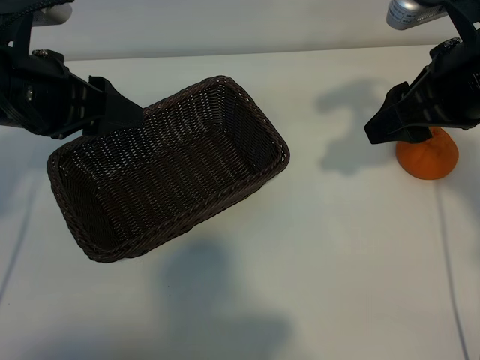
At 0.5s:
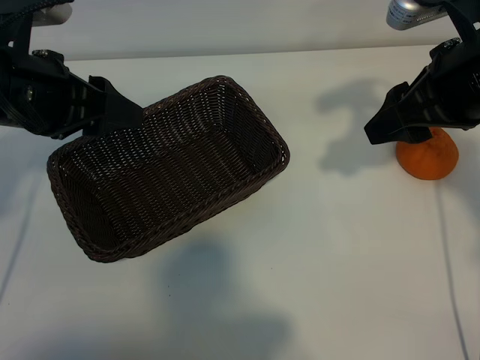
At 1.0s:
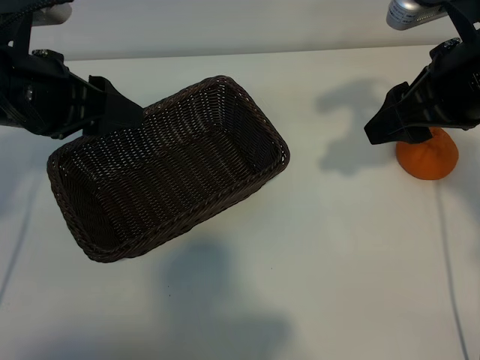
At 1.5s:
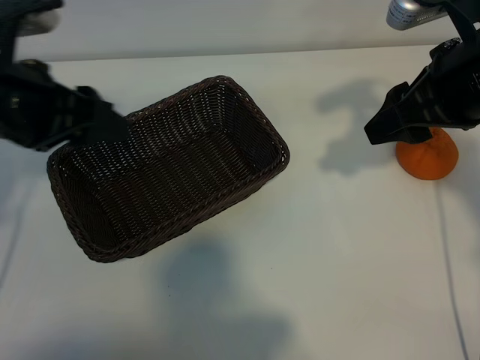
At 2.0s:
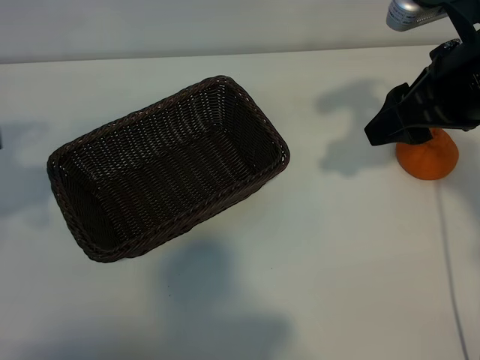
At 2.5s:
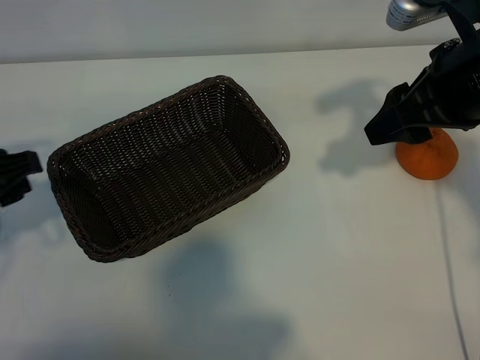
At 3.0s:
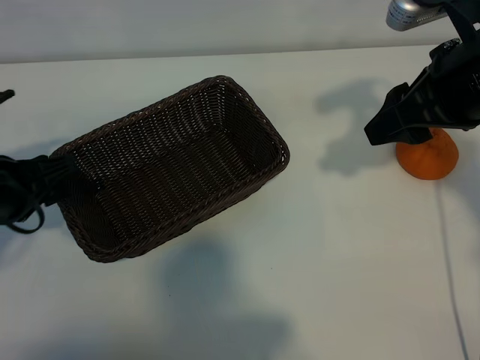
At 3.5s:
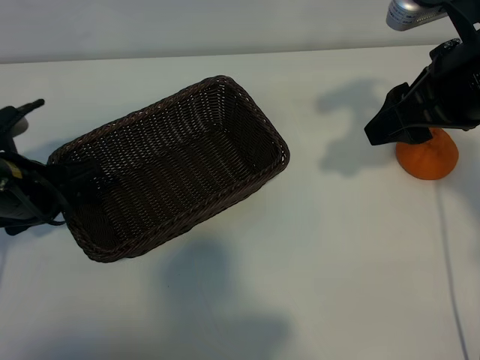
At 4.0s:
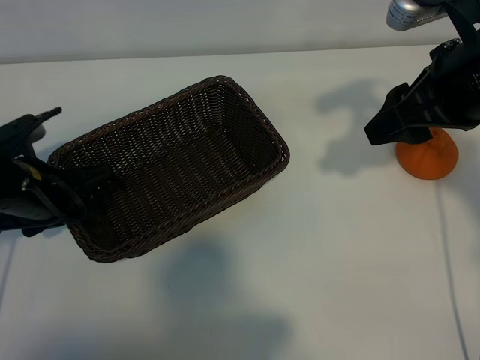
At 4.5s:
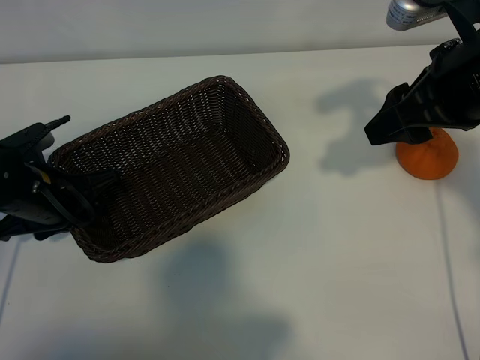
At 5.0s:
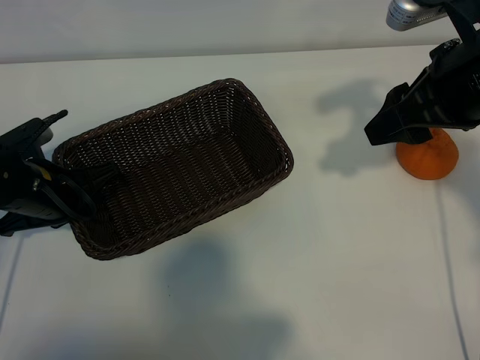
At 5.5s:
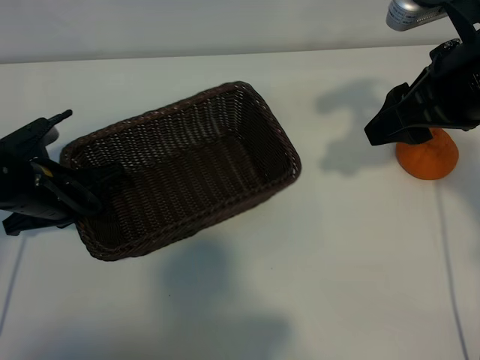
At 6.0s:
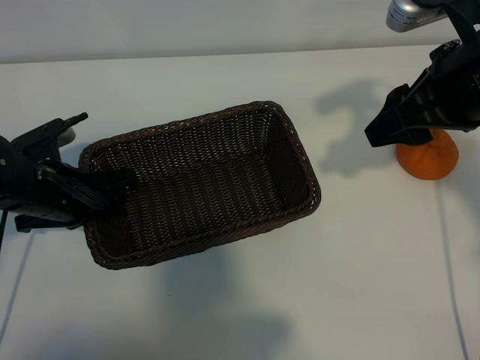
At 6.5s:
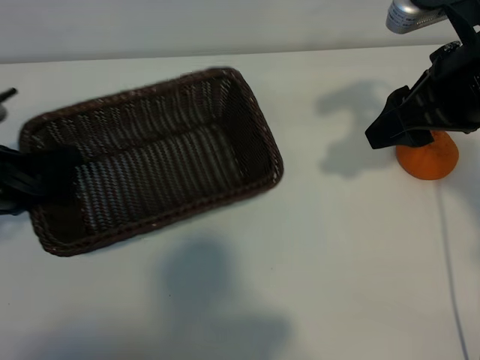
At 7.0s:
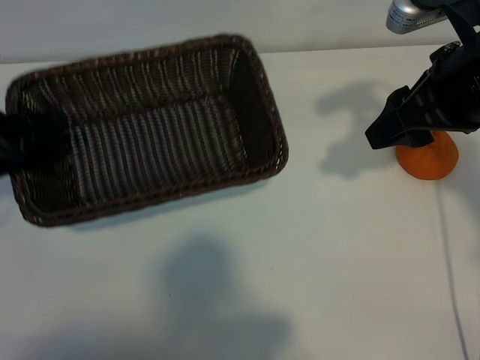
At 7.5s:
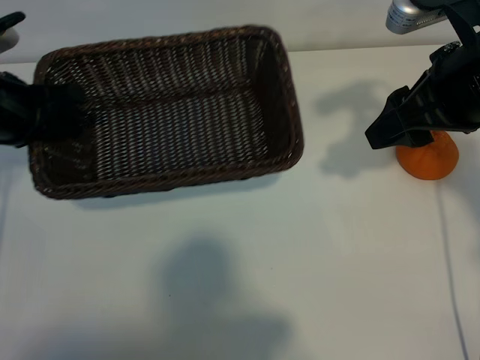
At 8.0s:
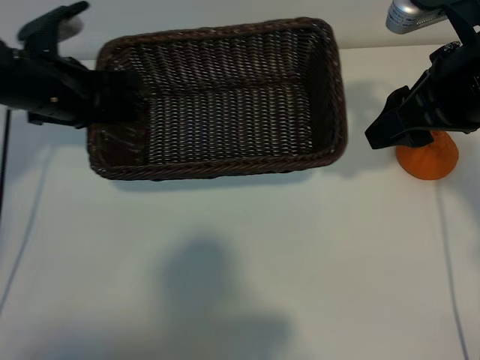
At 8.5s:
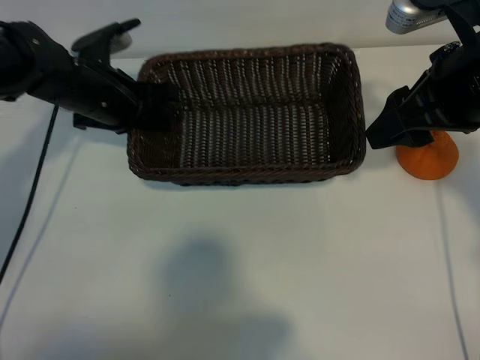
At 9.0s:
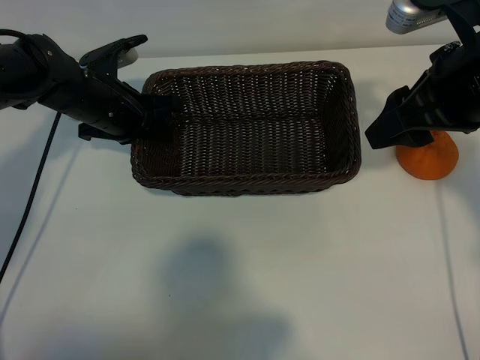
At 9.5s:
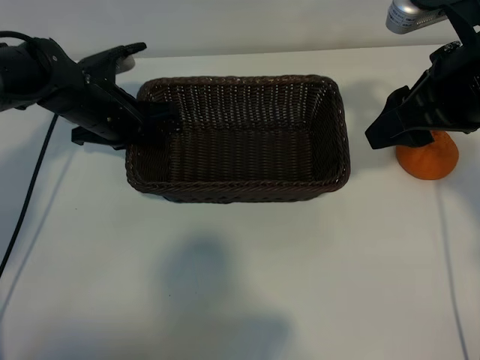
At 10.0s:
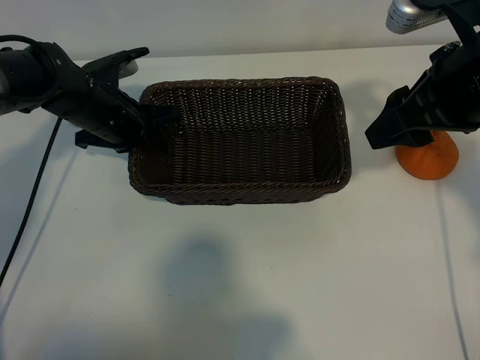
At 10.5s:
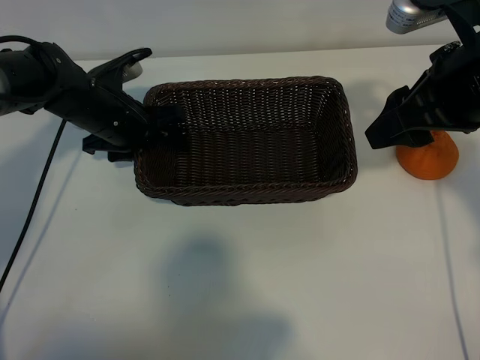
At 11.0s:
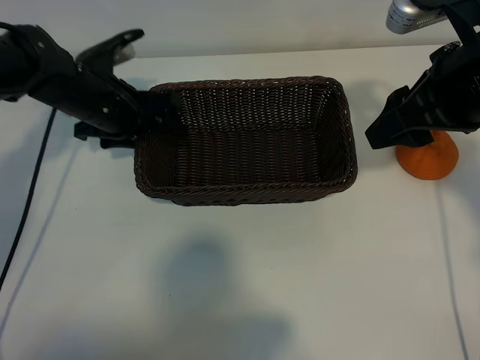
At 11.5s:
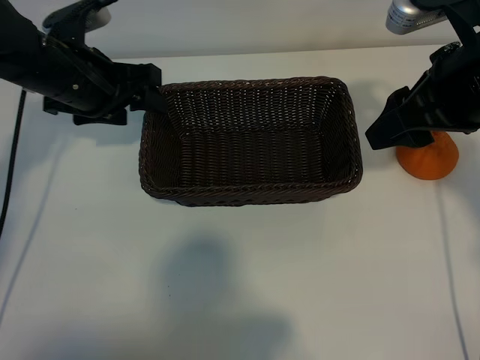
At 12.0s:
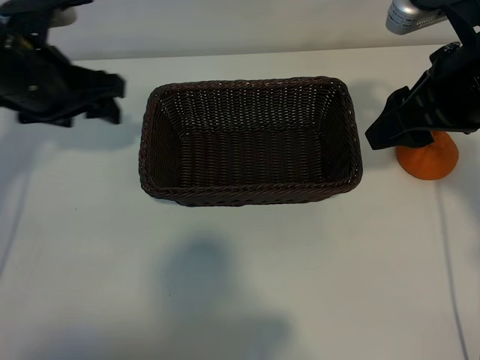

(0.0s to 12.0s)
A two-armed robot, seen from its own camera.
Task of the whole recording: pick up the orange and put it into the basket.
Step, 1.5s - 4.5s: Grasp the basket with left gripper.
Step, 5.0s - 10.5s: Place the basket in the center of view with left gripper.

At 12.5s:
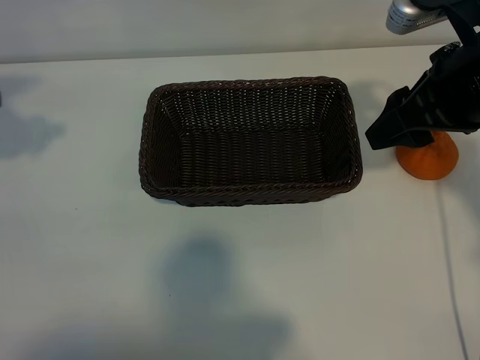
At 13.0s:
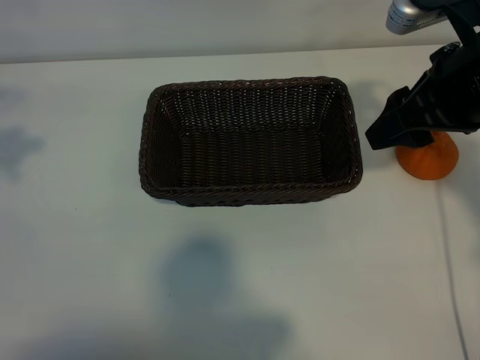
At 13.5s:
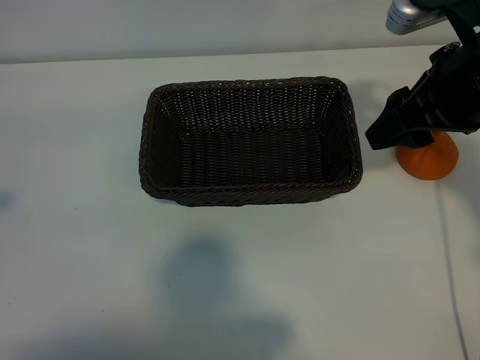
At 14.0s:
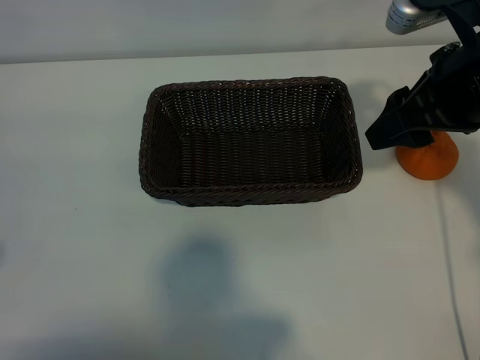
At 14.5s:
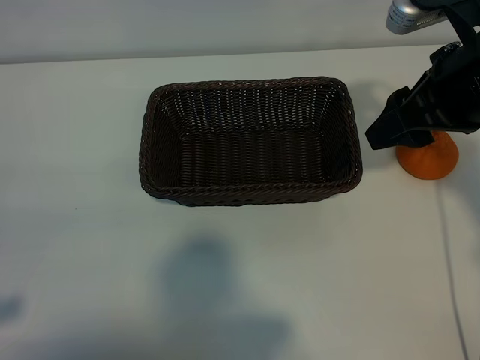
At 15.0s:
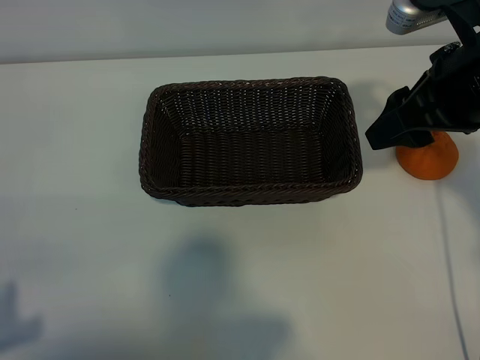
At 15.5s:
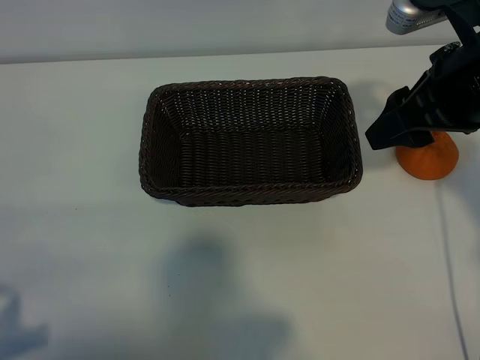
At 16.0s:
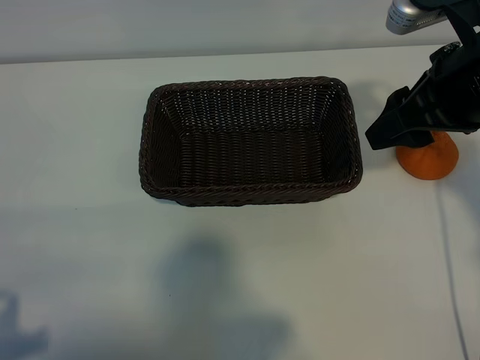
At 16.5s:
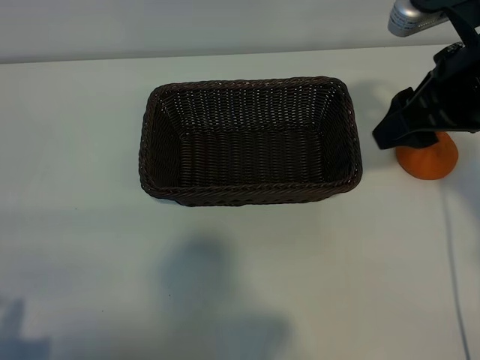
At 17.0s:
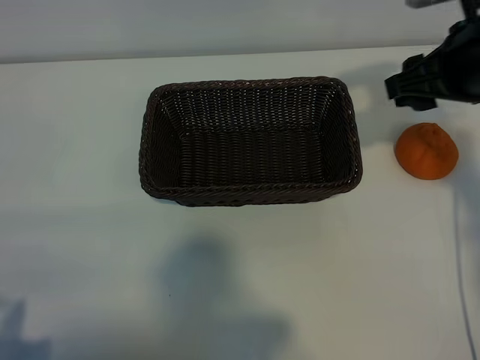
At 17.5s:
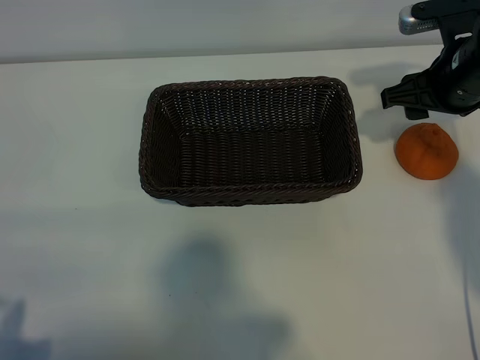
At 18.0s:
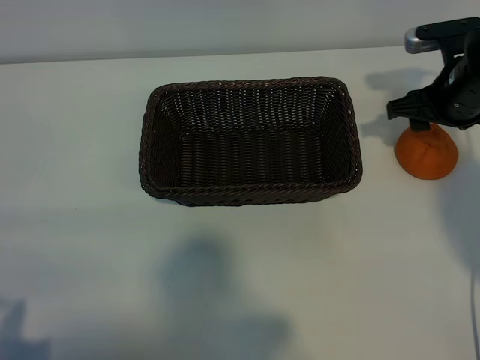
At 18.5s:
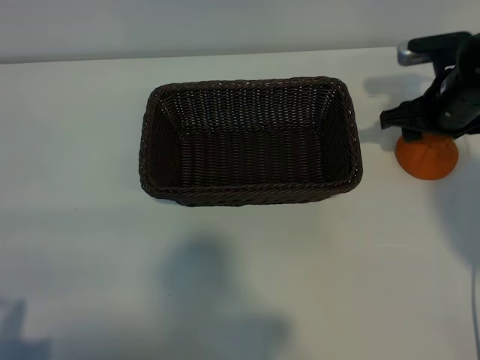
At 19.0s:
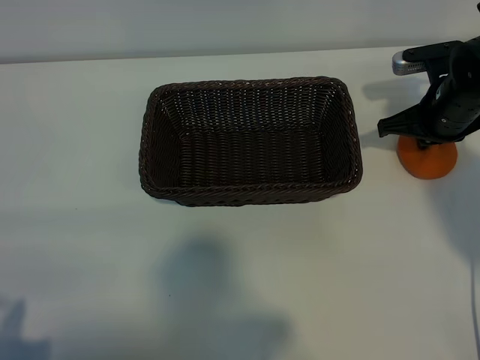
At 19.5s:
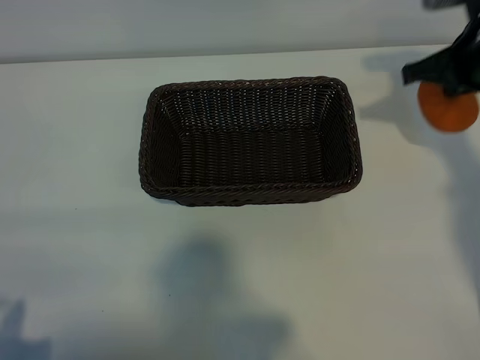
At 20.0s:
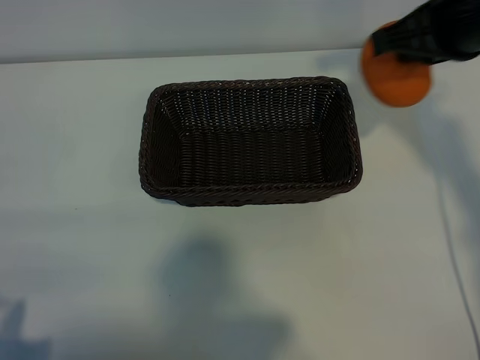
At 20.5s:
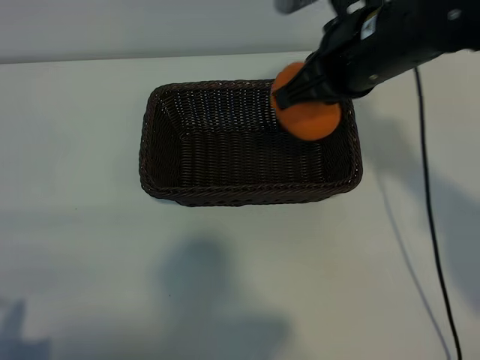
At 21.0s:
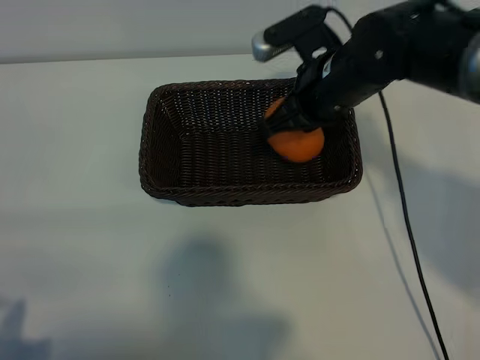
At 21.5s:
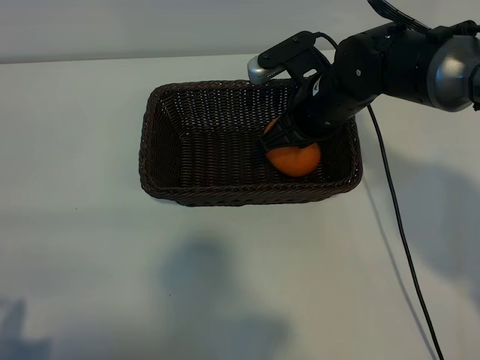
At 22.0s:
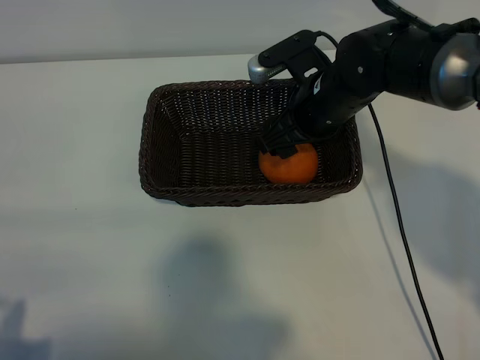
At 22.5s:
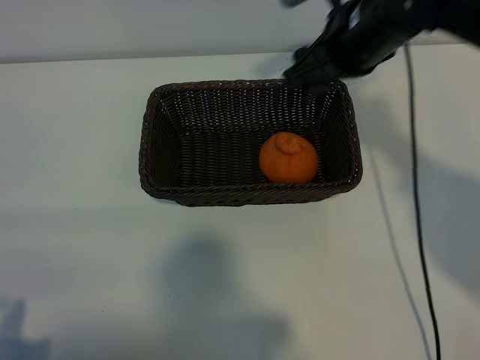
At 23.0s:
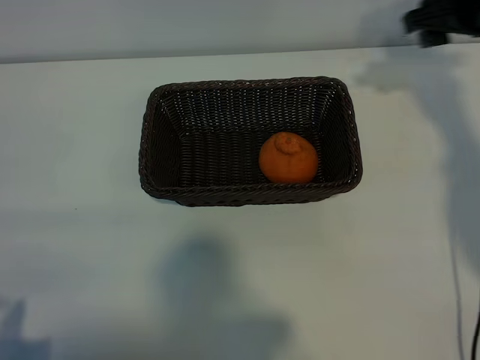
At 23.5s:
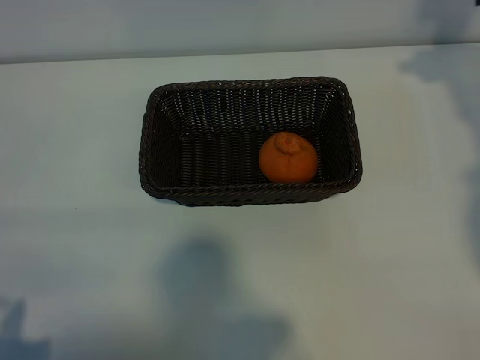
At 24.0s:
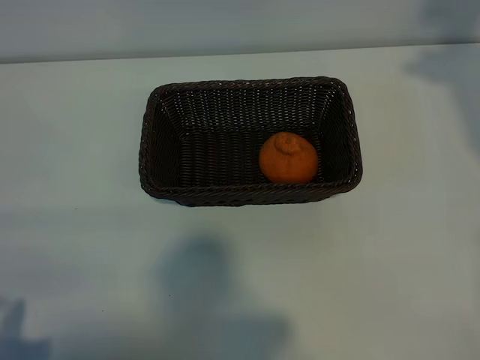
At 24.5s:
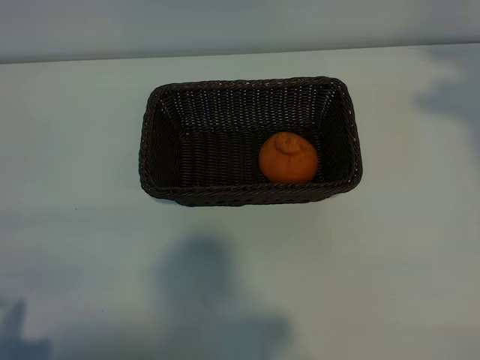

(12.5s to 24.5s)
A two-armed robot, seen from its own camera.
Task of the whole recording: pick up the orange and put it into the basket.
Step, 12.5s - 19.0s: Grasp the orange with right gripper.
Step, 19.5s - 22.0s: Place the orange in the basket with right gripper.

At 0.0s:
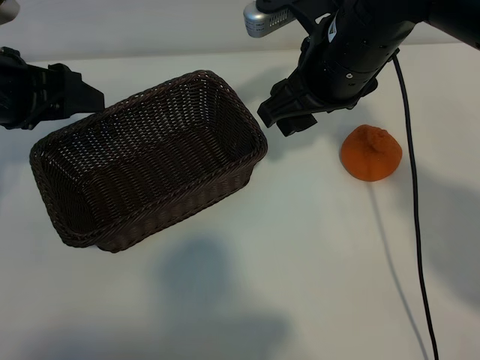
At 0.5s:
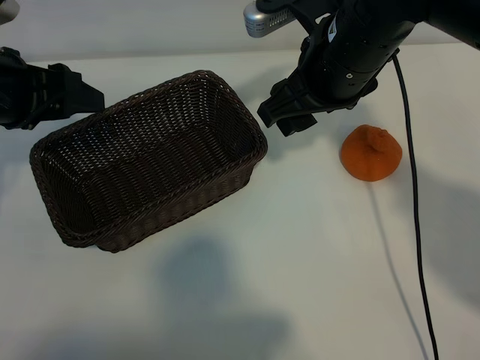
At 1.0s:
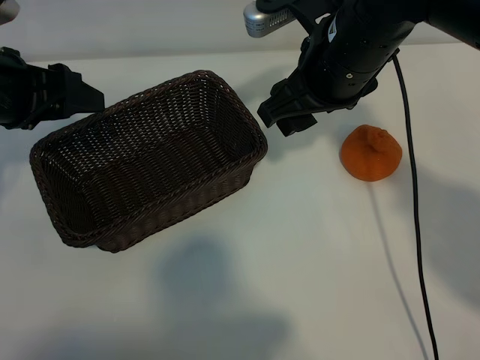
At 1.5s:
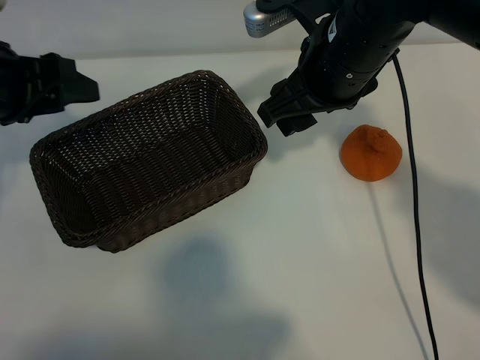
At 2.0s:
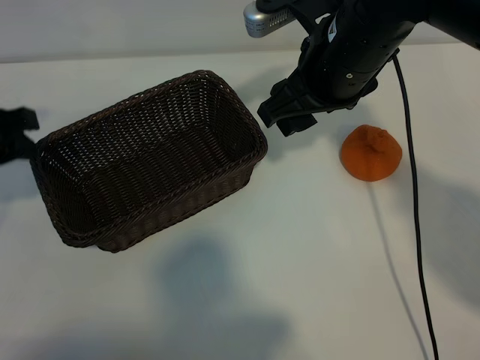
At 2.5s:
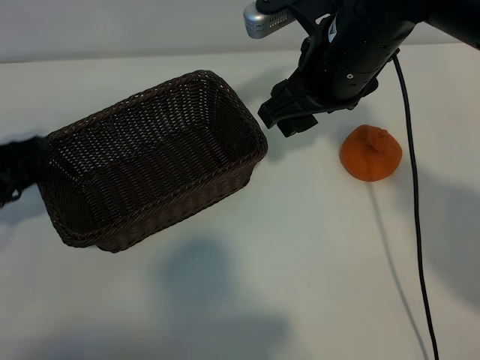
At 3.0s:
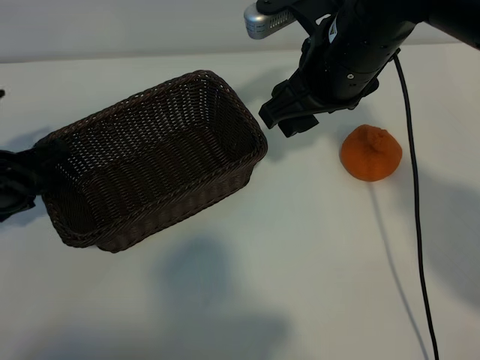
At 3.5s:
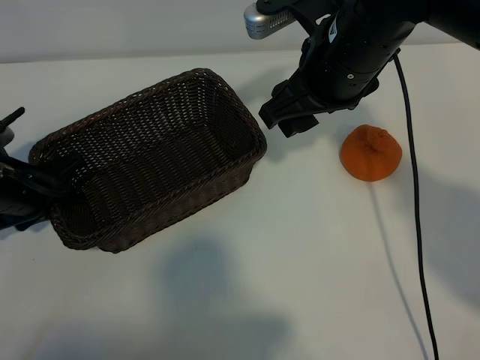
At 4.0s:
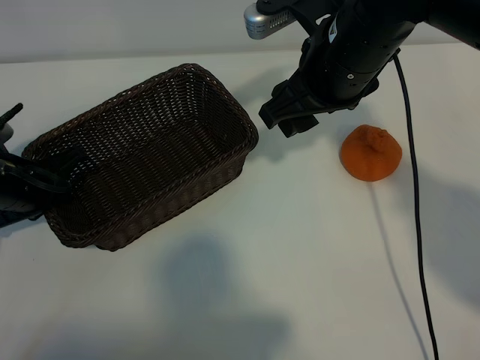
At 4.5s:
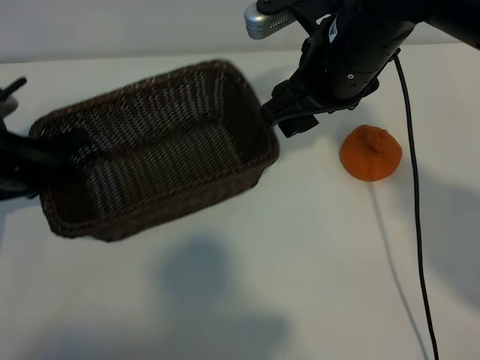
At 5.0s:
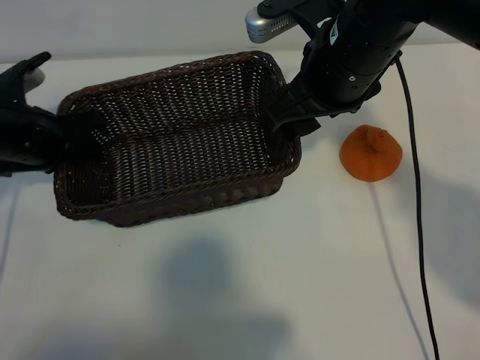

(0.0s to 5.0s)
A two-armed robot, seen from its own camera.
Task of the whole recording: pick up the orange and put it into the basket.
Step, 1.5s - 3.5s: Grasp the basket with left gripper.
